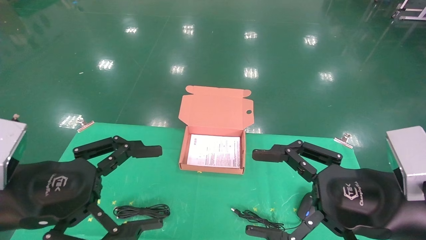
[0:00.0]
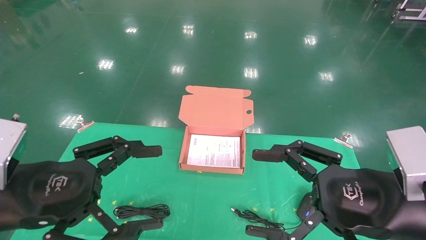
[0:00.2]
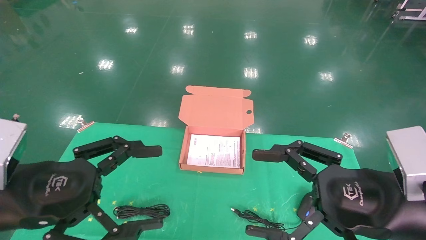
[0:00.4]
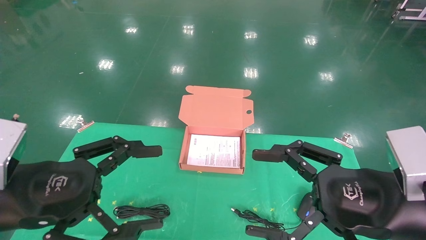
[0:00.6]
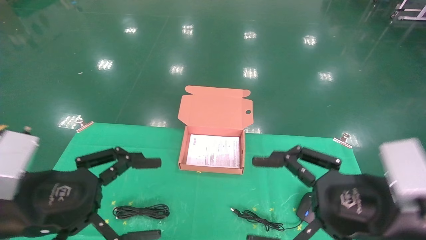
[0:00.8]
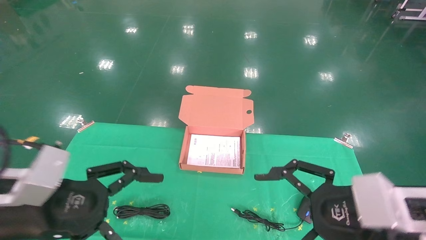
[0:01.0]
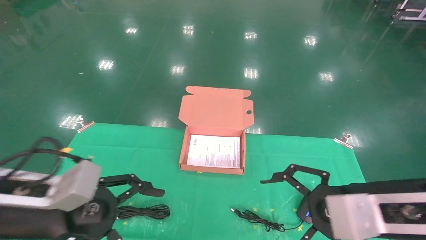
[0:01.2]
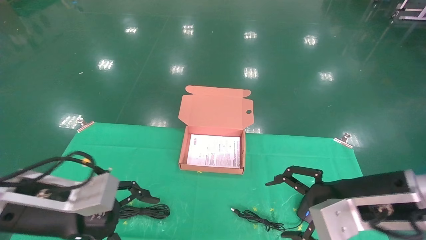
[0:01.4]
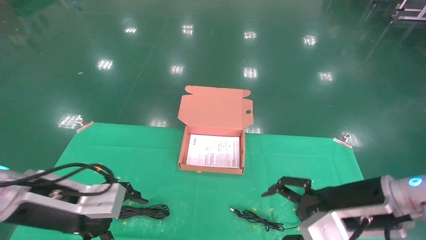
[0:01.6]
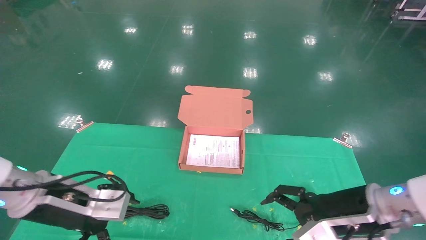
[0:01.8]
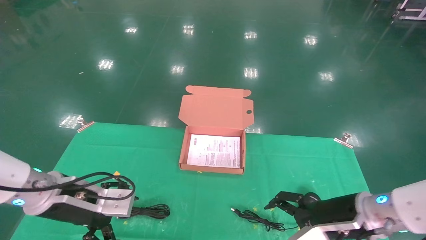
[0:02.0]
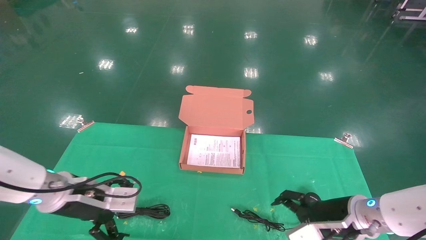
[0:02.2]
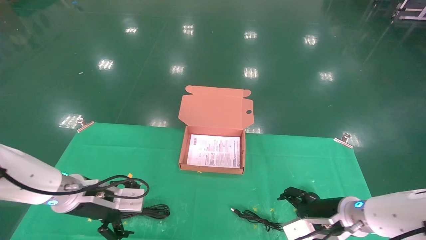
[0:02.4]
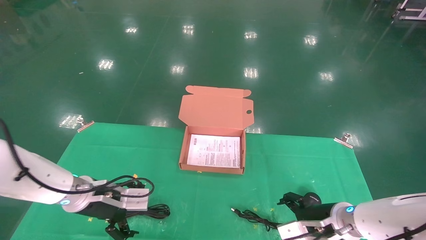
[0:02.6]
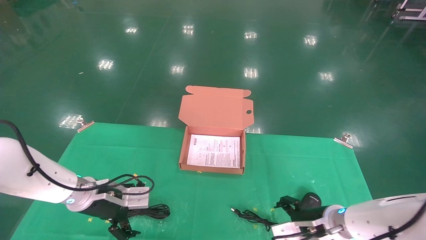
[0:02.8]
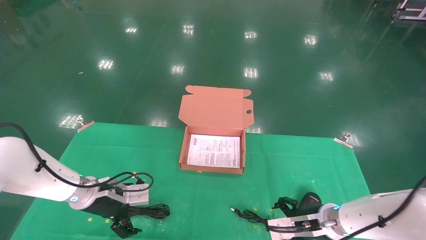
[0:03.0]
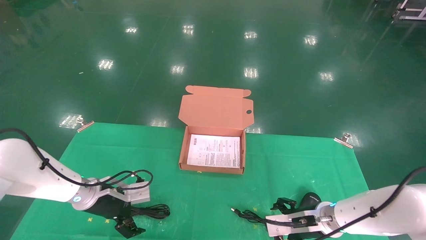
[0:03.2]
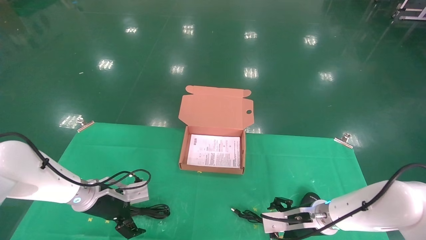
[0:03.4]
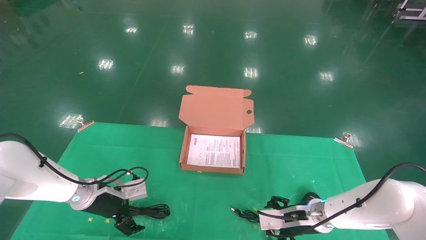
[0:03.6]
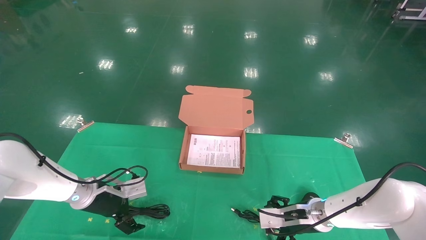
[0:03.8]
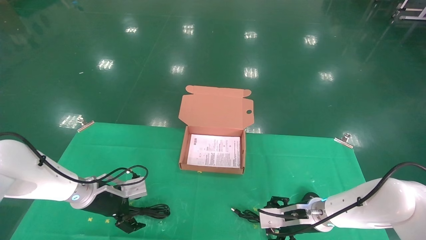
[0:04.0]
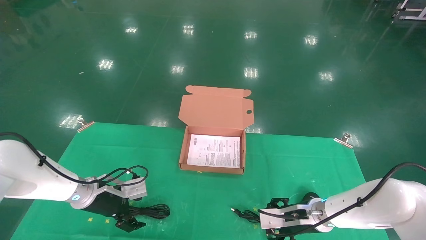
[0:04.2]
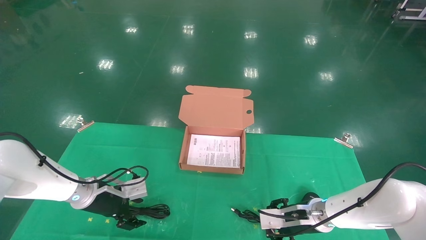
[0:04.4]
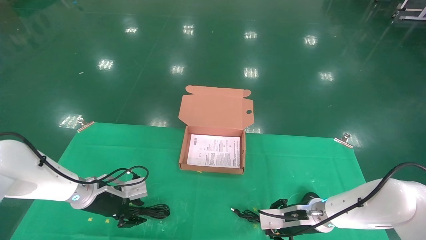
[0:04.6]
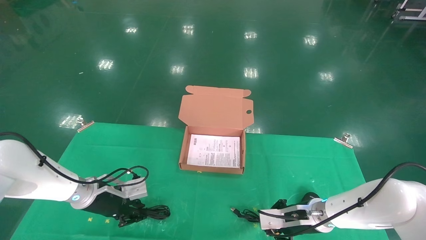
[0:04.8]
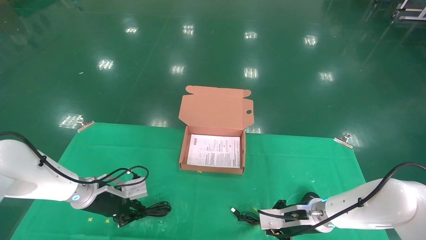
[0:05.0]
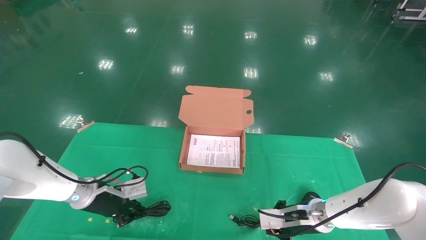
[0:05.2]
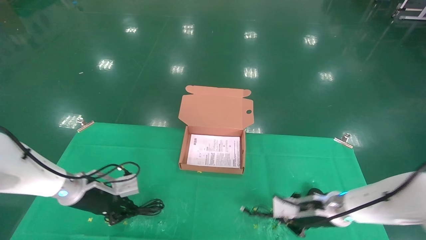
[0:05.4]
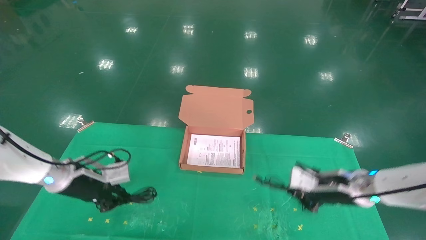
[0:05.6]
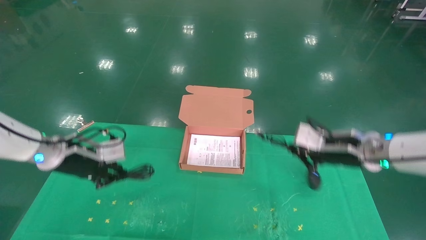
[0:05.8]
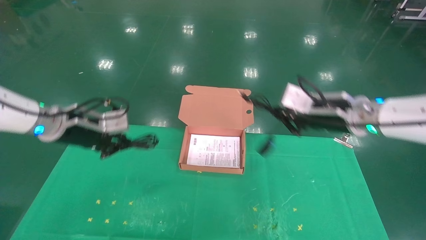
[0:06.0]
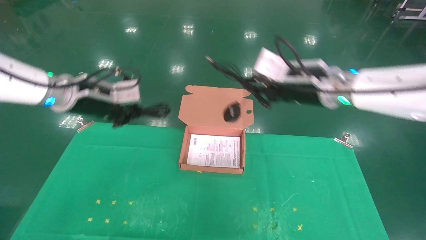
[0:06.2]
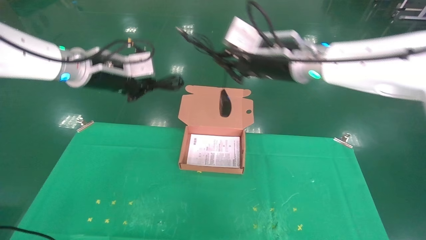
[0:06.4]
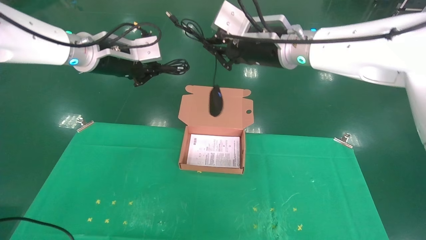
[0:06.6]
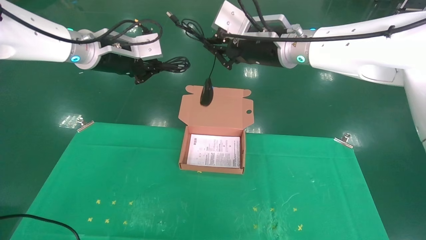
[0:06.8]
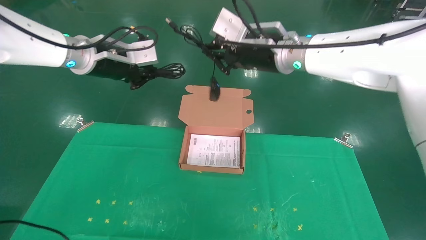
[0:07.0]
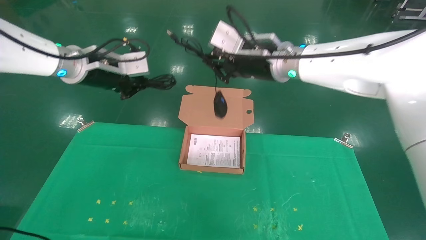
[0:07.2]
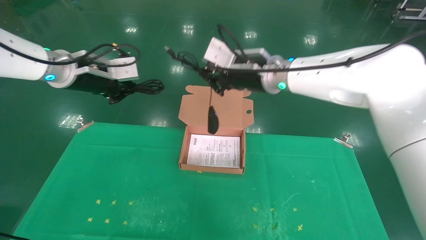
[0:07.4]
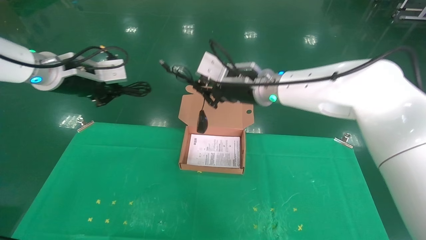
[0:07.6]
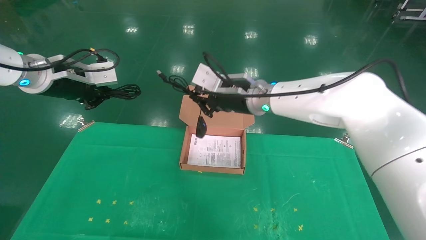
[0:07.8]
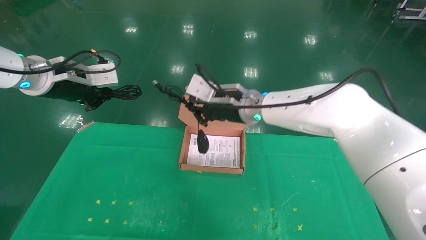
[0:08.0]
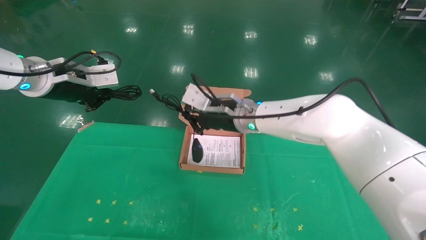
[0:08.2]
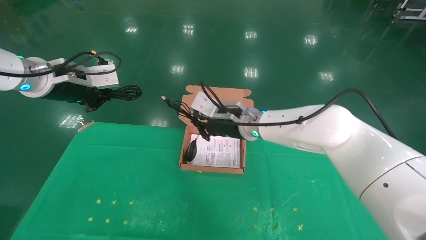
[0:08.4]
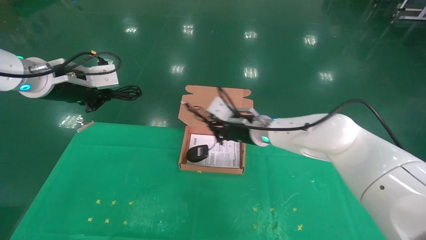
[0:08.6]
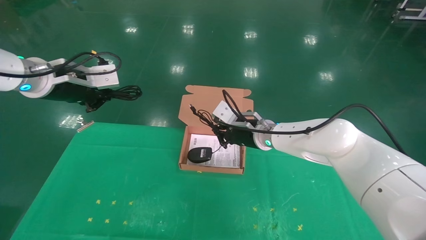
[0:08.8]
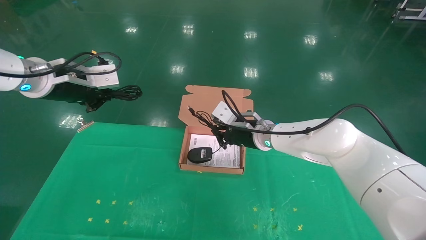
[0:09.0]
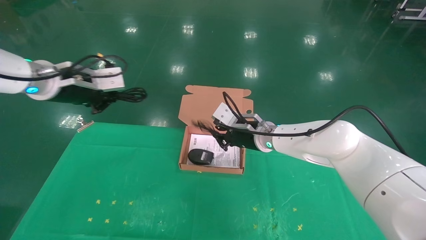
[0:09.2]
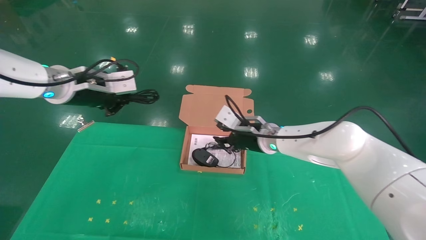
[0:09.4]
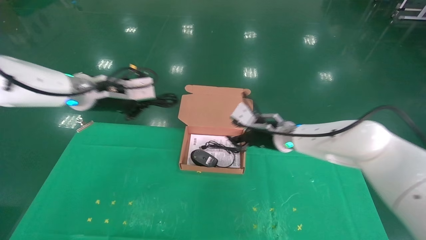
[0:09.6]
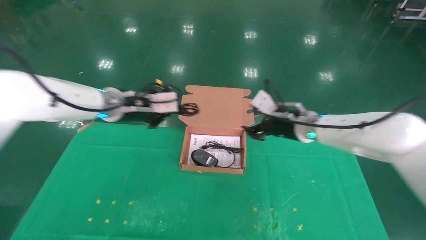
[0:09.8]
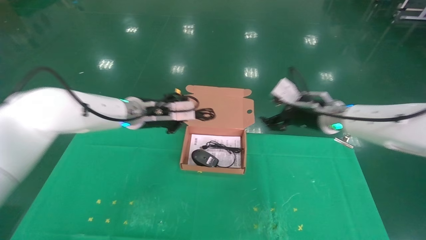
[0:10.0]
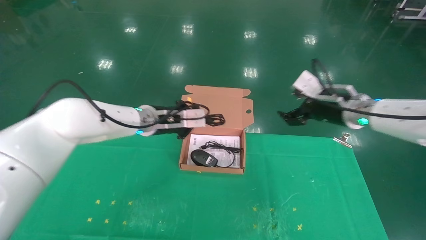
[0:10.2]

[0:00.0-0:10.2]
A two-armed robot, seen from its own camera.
Task of the whole recording: grasp data cable left put into box grasp mouse right put into box.
Step, 0:01.2 to 0:06.0: Grab and pick up both the mouse and power cord from the accessory packaging area at the same time.
0:00.0 to 0:01.4: The two grippers go roughly 5 cm forward.
0:01.4 to 0:03.0: The right gripper shifts approximately 20 cm downward and forward. The left gripper goes some 20 cm forward and downward.
0:03.0 to 0:04.4: There are only small adjustments of the grippers.
0:04.4 to 0:05.8: Both grippers travel together upward, about 15 cm. The right gripper closes up. Meanwhile the left gripper closes.
0:05.8 to 0:07.2: The right gripper heads to the left and upward, covering about 25 cm; the left gripper travels upward by roughly 15 cm.
0:07.2 to 0:08.8: The right gripper heads downward, covering roughly 15 cm; the left gripper changes place by roughly 5 cm.
0:08.8 to 0:10.2: The right gripper travels to the right and upward by roughly 20 cm, and opens up, while the left gripper shifts approximately 20 cm to the right, downward and forward.

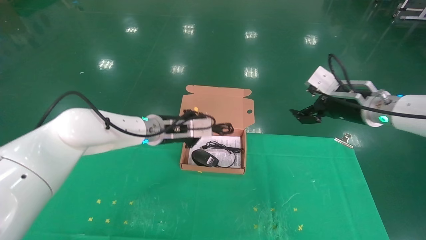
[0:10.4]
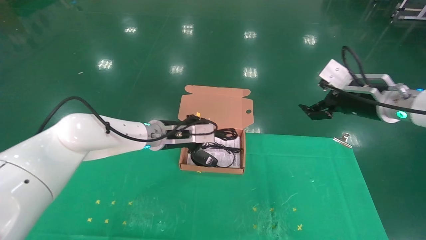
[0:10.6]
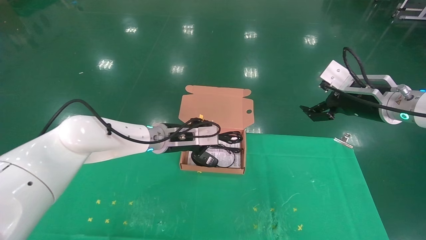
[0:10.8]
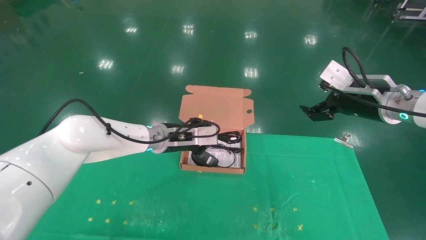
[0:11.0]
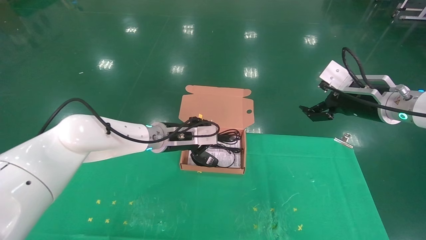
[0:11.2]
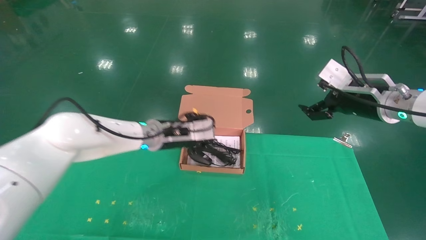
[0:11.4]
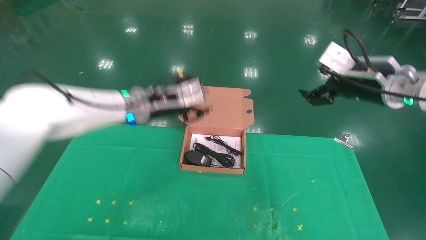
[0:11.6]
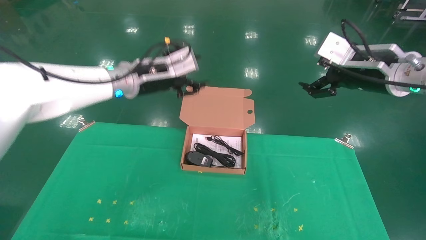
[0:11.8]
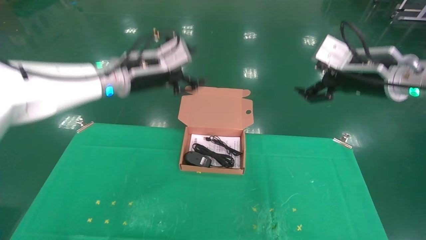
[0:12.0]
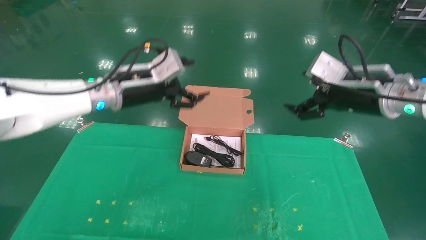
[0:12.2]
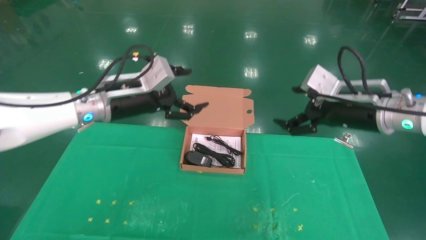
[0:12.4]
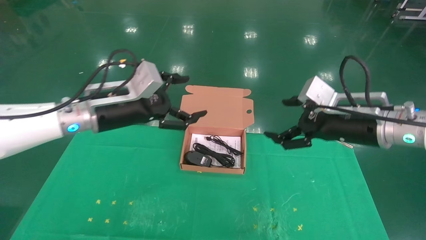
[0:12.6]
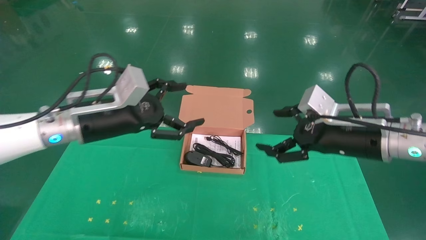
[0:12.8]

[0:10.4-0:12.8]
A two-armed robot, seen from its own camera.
Task of the whole recording: grasp data cable left put into box grasp mouse right put into box.
0:10.4 to 0:11.6: The left gripper shifts roughly 5 cm upward. Meanwhile the right gripper changes place by some 5 cm.
0:11.6 to 0:12.8: The right gripper moves downward and backward, some 10 cm. Meanwhile the left gripper moves backward and to the left, some 15 cm, and opens its fingers.
